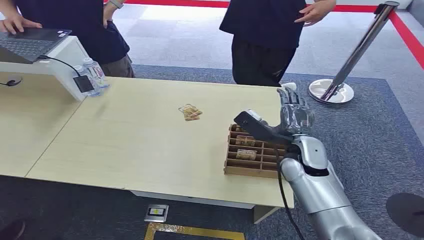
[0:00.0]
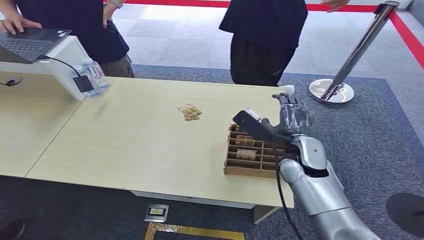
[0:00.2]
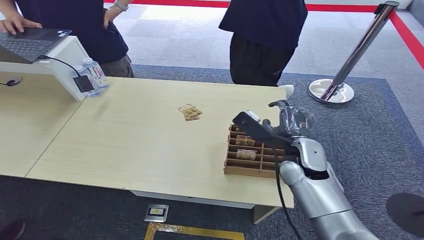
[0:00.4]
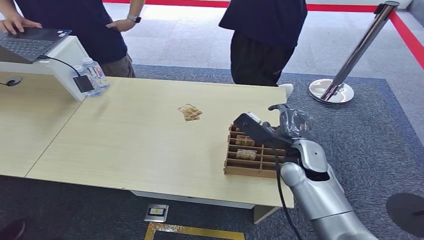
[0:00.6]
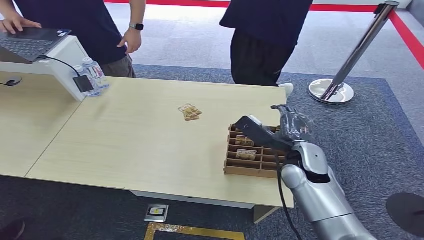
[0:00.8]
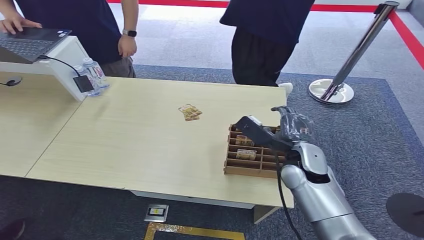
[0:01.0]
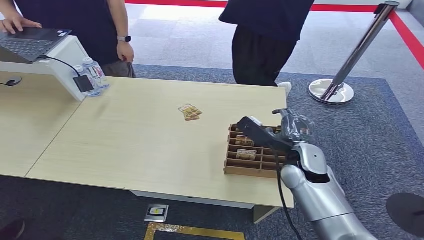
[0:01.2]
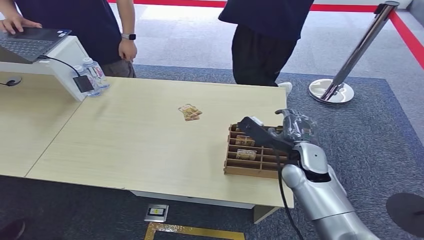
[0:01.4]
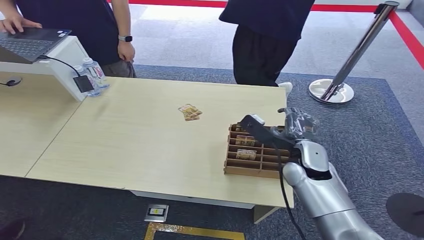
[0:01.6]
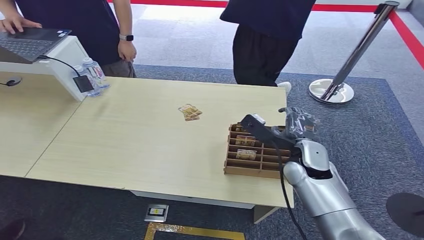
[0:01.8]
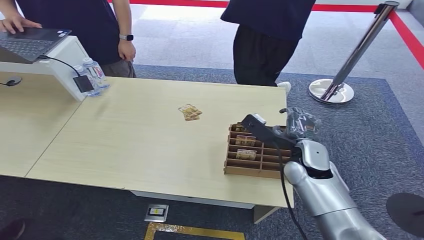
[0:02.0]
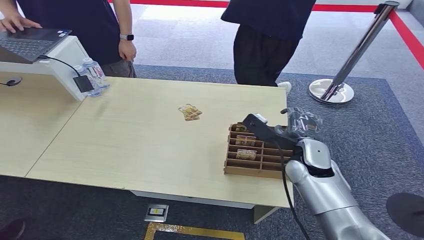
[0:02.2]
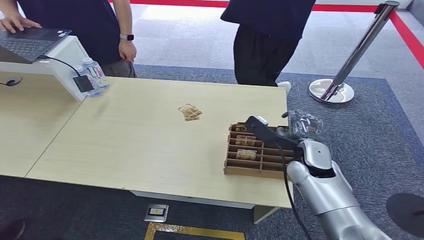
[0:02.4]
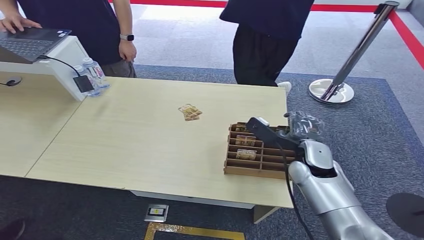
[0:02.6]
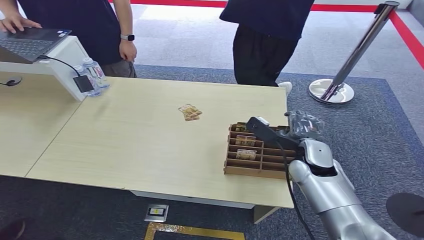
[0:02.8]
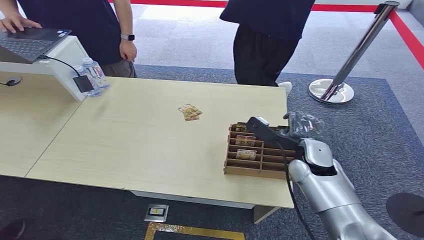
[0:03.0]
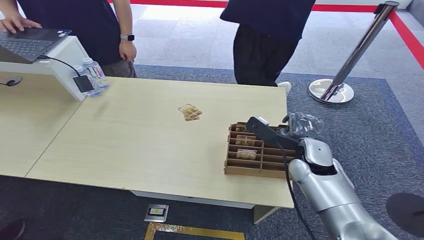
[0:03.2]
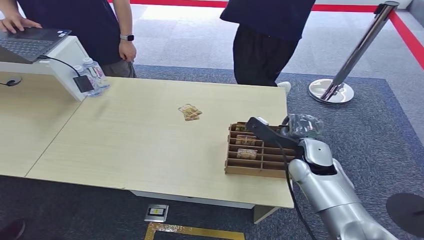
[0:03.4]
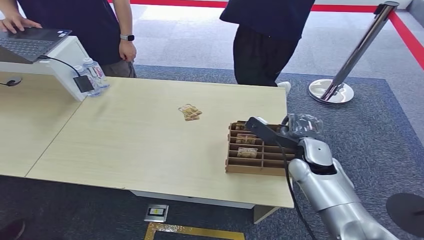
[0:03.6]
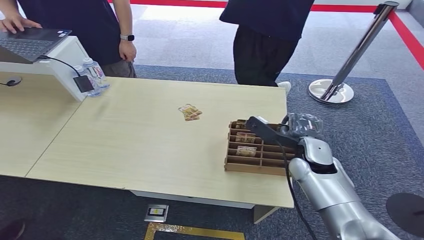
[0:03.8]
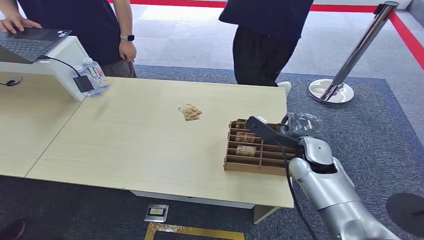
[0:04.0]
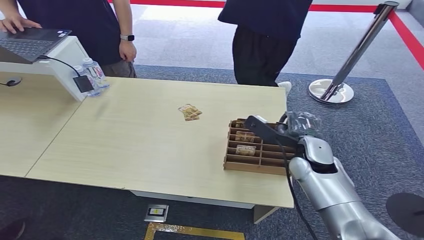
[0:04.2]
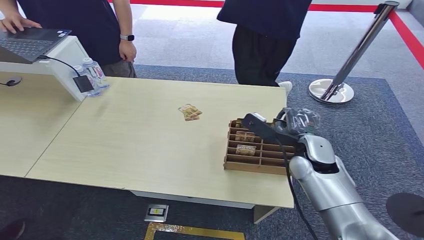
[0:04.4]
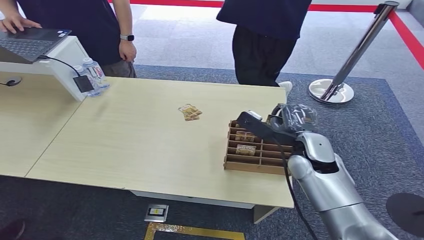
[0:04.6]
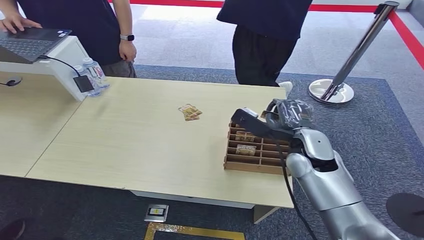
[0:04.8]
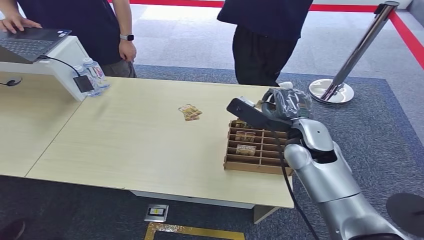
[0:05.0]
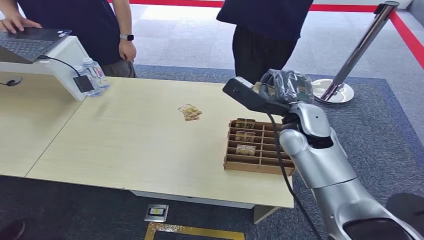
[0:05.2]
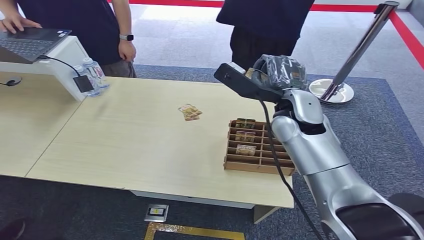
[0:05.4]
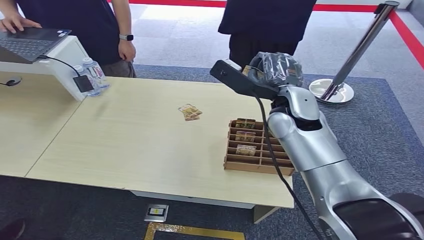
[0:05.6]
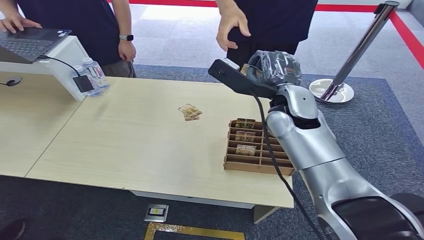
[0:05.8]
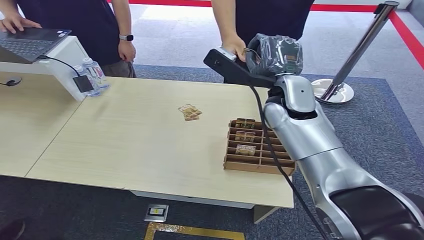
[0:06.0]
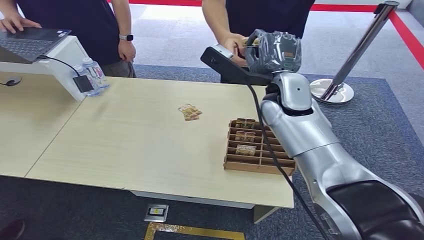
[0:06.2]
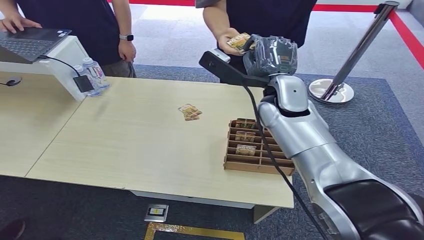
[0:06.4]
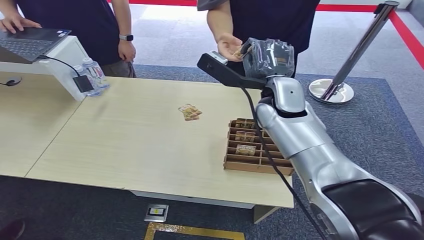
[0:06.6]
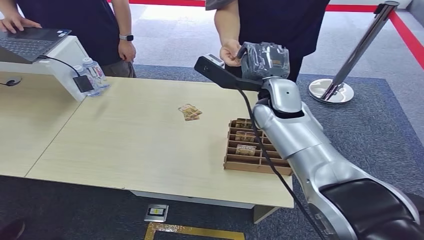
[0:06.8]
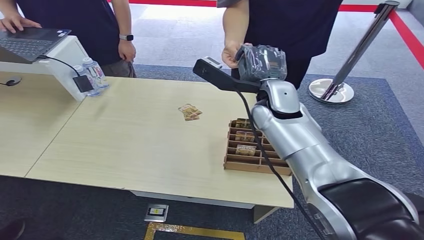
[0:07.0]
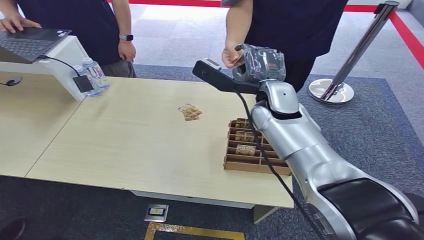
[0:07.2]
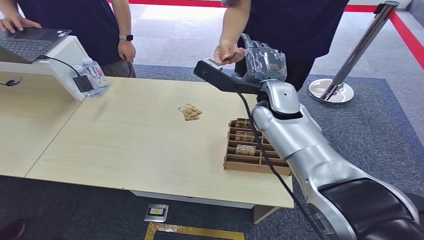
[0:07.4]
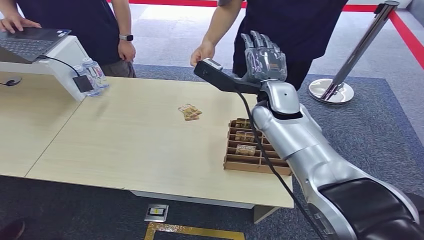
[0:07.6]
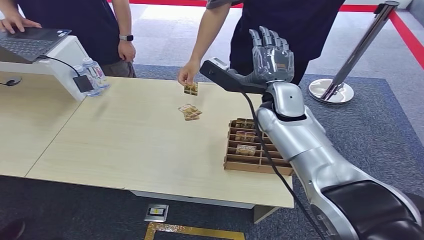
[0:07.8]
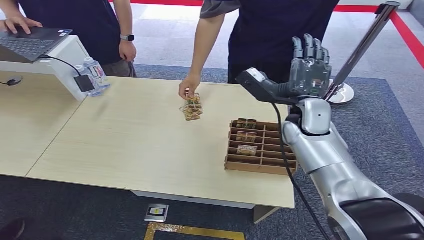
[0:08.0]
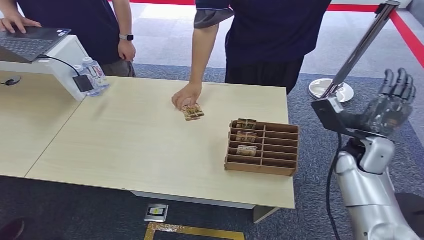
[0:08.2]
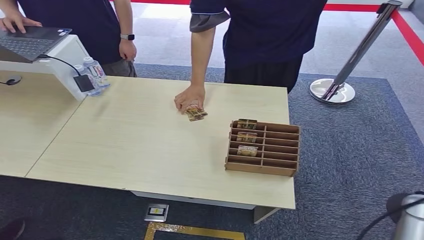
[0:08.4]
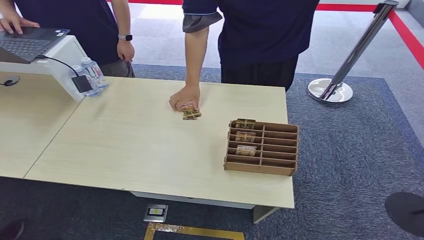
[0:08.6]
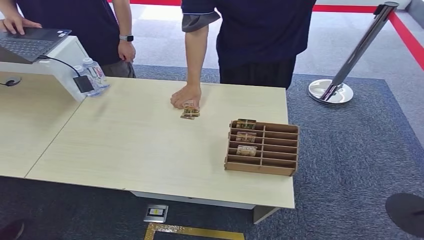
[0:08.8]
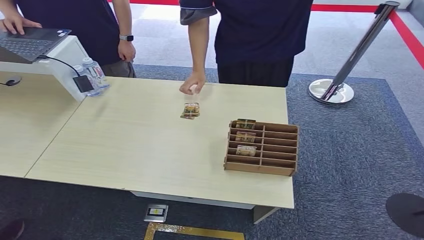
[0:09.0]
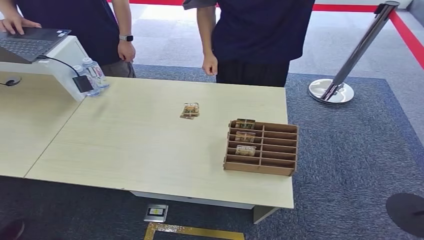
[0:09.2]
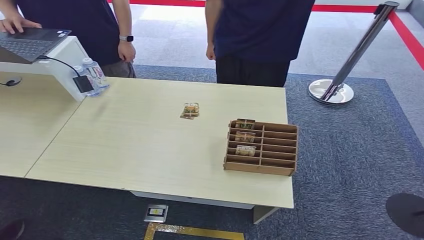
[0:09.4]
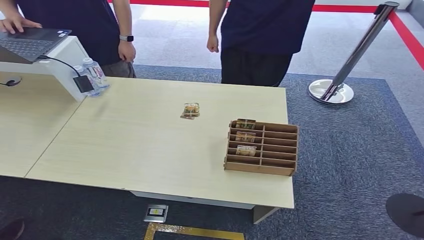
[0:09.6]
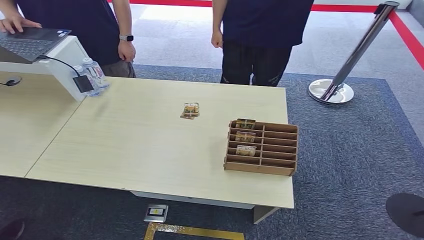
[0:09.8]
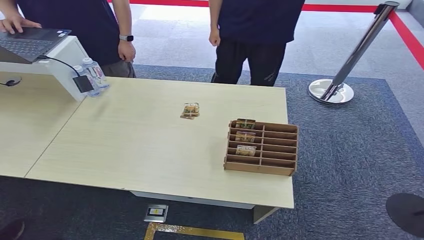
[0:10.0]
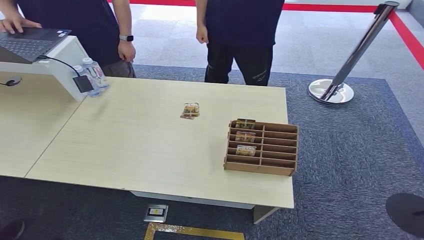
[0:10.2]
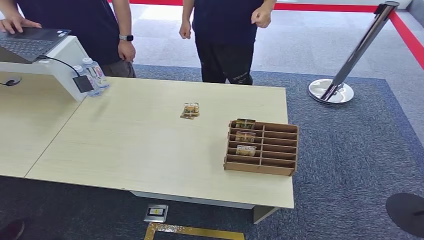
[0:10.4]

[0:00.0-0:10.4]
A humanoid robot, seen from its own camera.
Step, 0:00.0 to 0:04.6: Pick up the room card from the card holder.
Step, 0:04.8 to 0:10.4: Hand the room card to the target.
0:01.4 to 0:04.4: The hands move only a little.
0:04.4 to 0:06.0: The right hand goes roughly 20 cm upward, to the left and forward.
0:06.0 to 0:07.4: The hands move only a little.
0:09.0 to 0:10.4: The right hand goes some 25 cm to the left.
